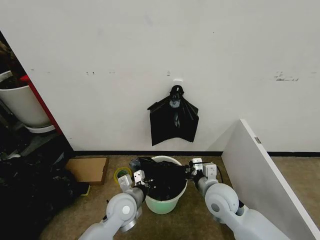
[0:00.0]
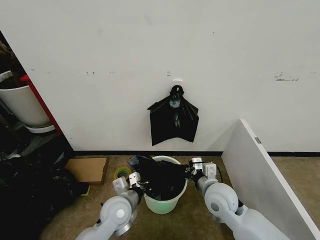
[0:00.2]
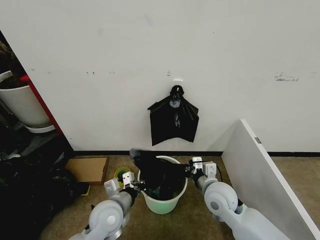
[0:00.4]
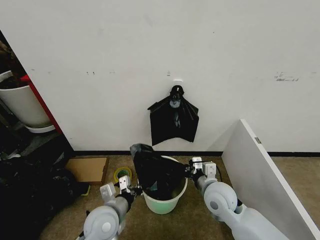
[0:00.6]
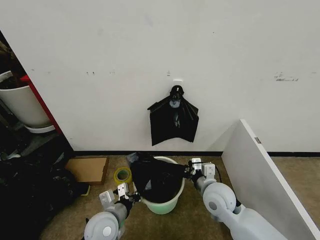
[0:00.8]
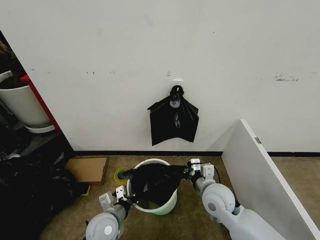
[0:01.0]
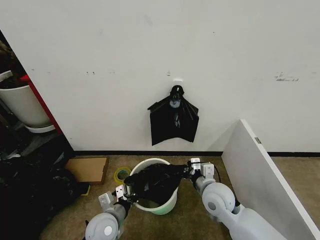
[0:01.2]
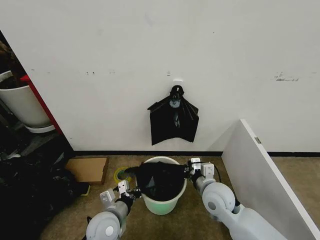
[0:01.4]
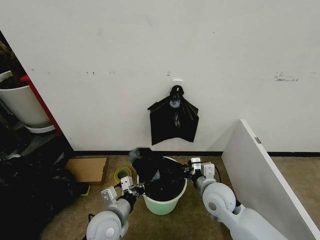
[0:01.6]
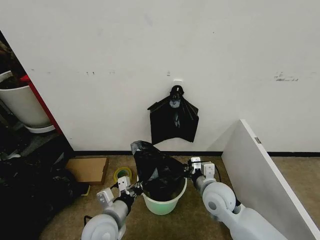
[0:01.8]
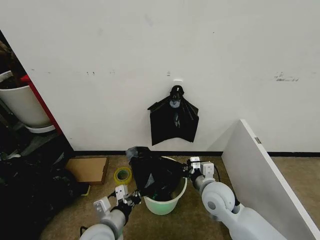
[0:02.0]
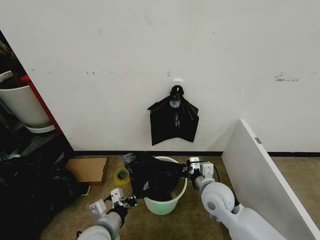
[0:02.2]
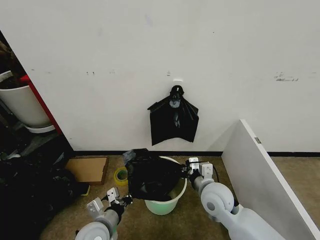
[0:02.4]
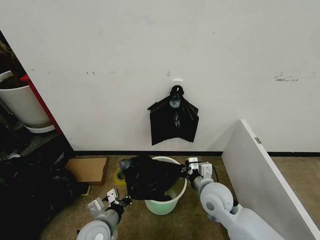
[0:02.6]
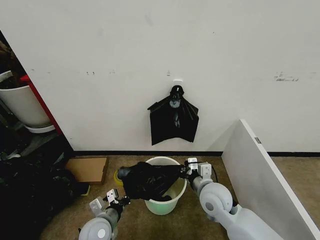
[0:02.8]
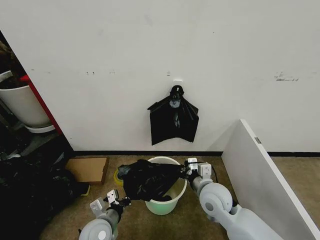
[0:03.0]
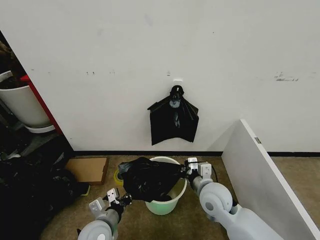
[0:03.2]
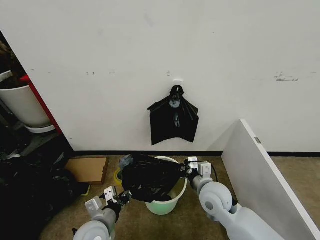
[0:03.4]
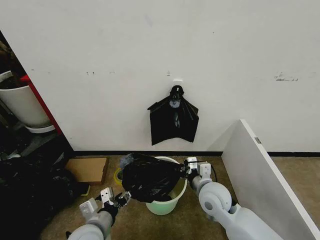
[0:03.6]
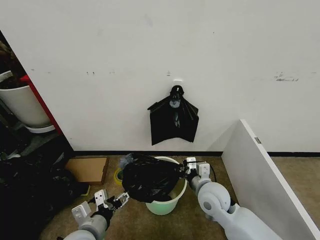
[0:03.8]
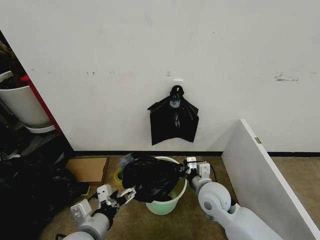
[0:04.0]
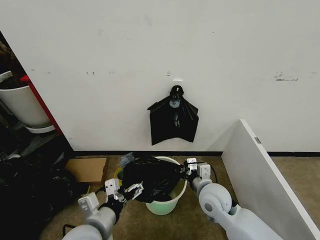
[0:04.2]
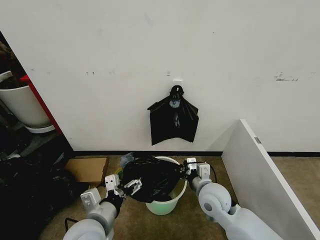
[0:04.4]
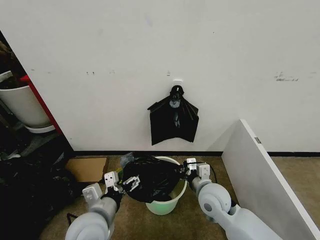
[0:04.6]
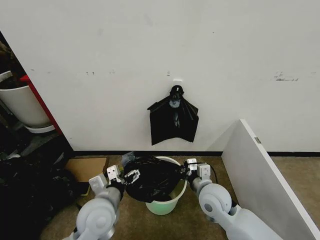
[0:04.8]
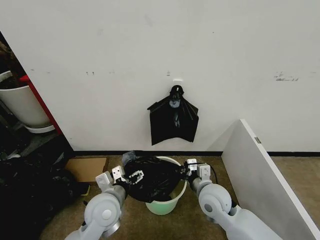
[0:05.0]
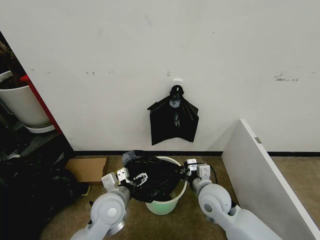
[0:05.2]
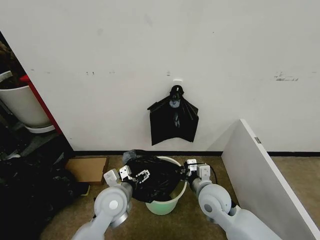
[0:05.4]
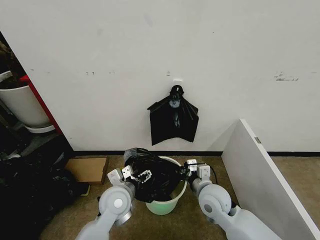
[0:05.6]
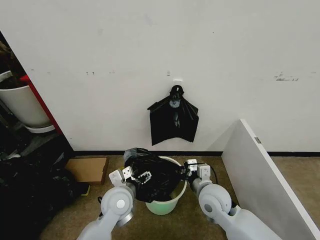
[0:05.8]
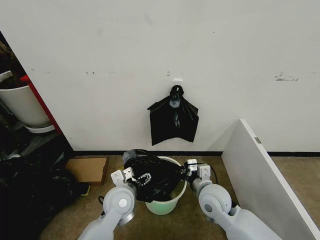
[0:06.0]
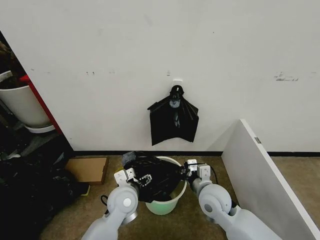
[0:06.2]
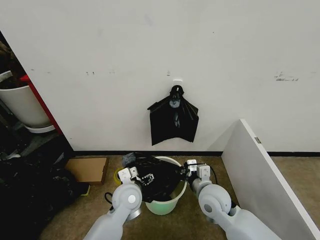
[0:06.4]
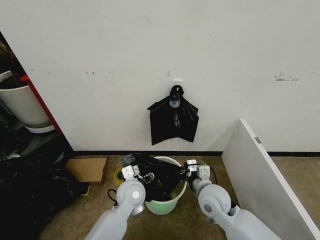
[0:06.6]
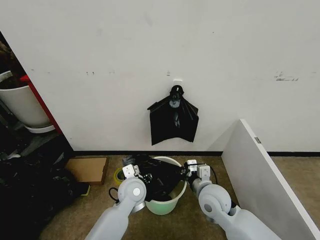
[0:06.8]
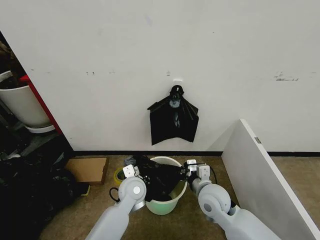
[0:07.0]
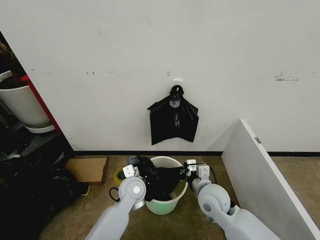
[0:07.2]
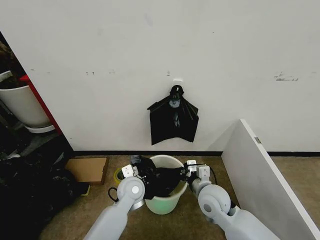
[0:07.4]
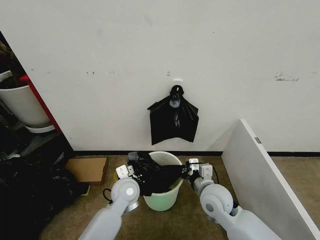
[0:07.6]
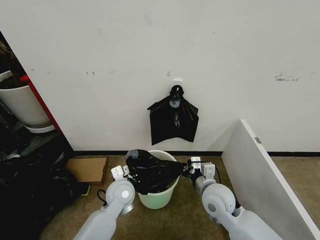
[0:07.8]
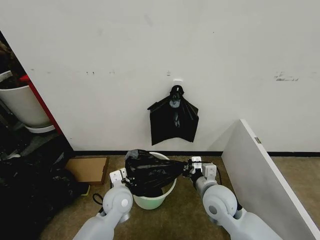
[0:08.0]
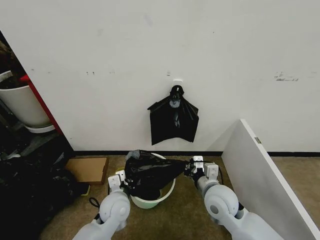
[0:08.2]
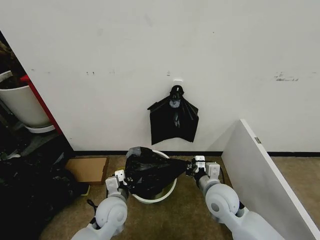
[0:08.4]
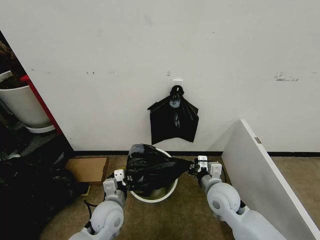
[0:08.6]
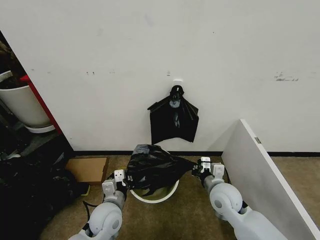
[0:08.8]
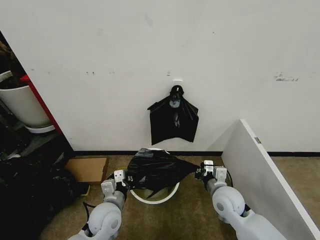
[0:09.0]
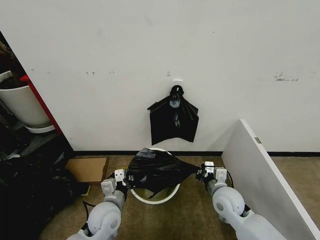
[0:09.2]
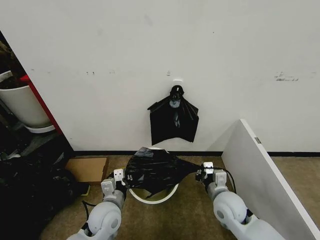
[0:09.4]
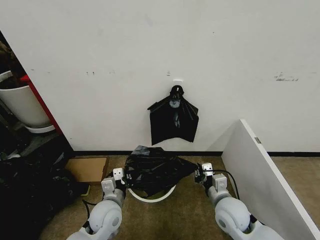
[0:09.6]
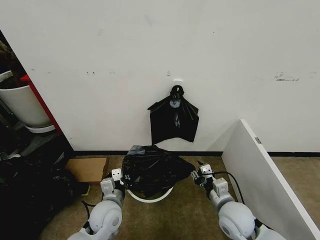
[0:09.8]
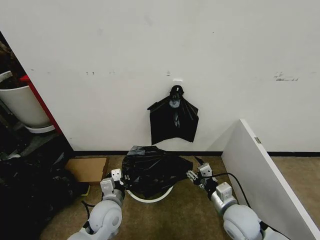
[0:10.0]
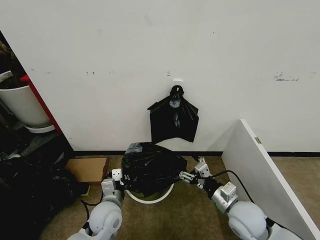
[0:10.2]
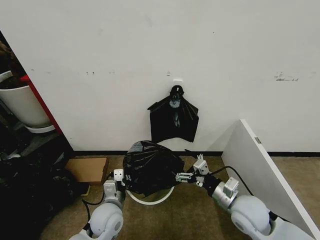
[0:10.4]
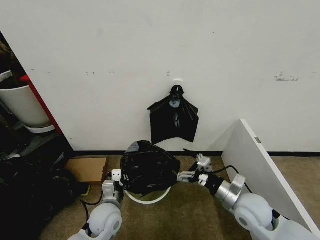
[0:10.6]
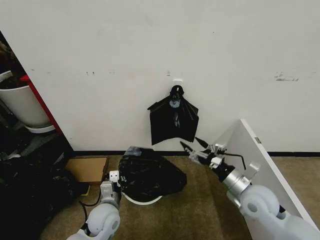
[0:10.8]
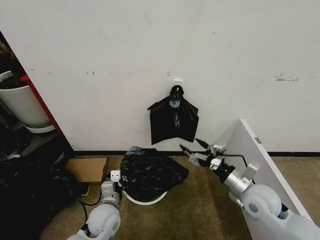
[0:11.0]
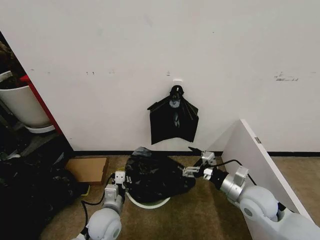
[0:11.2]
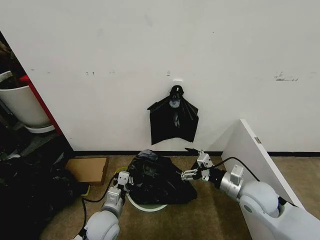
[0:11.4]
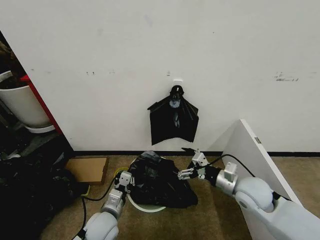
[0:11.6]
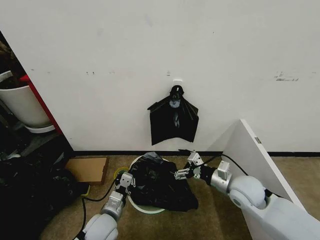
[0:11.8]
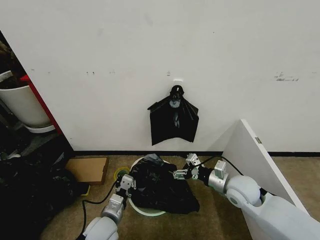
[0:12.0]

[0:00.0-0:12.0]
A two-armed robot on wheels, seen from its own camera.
Task of the whole recording: Place the garbage bag over the trash bin.
0:00.0 to 0:01.6: The left gripper is displaced backward by roughly 5 cm.
0:01.6 to 0:03.0: The left gripper is displaced downward by approximately 5 cm.
0:03.0 to 0:04.4: The left gripper is displaced upward by roughly 15 cm, and opens its fingers.
0:04.4 to 0:06.0: The left gripper is displaced forward, downward and to the right by about 15 cm.
0:06.0 to 0:07.6: The left gripper closes up.
0:07.6 to 0:09.0: The right gripper moves to the right, about 5 cm, while the left gripper travels backward and to the left by approximately 10 cm.
0:09.0 to 0:10.4: The right gripper shifts by approximately 5 cm, and opens.
0:10.4 to 0:12.0: The right gripper shifts about 5 cm forward.

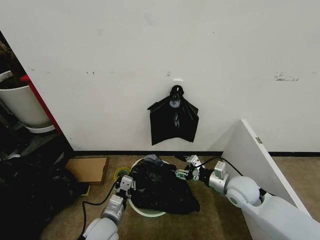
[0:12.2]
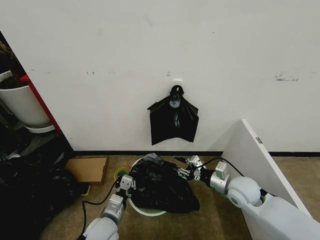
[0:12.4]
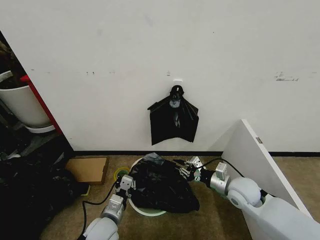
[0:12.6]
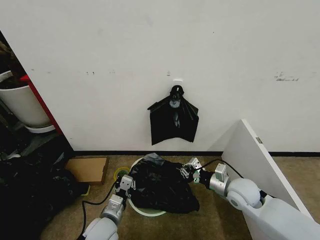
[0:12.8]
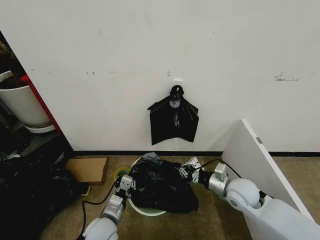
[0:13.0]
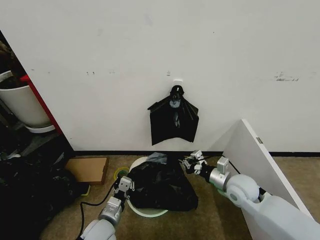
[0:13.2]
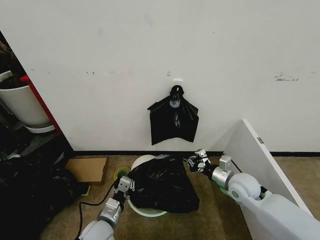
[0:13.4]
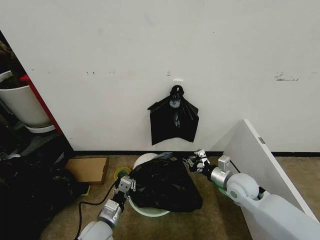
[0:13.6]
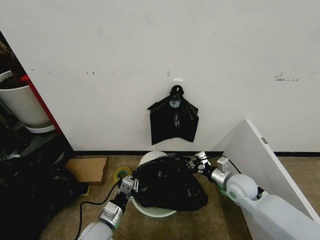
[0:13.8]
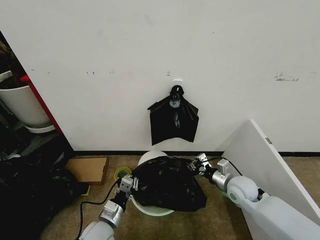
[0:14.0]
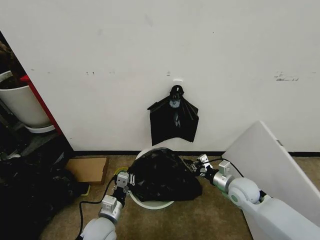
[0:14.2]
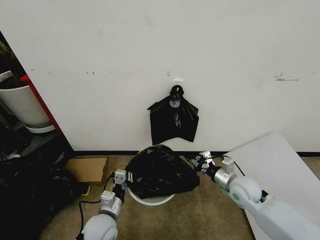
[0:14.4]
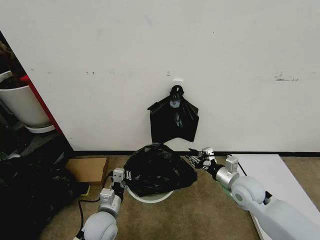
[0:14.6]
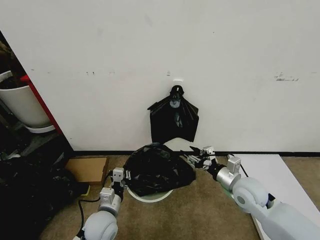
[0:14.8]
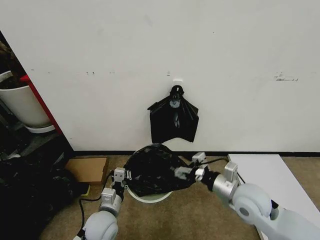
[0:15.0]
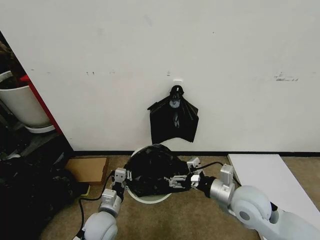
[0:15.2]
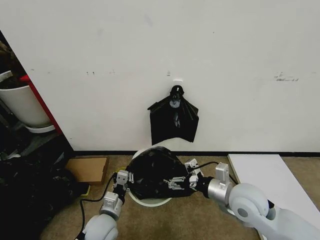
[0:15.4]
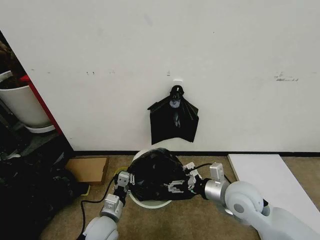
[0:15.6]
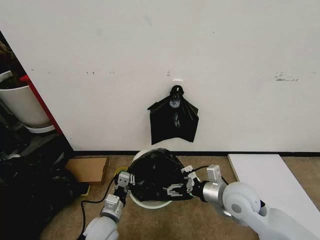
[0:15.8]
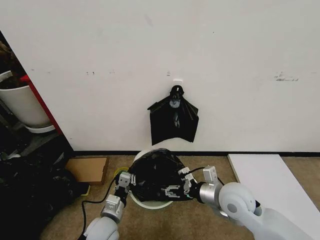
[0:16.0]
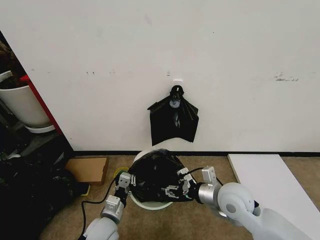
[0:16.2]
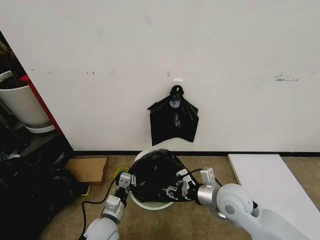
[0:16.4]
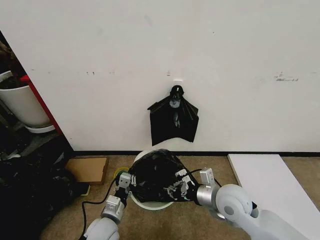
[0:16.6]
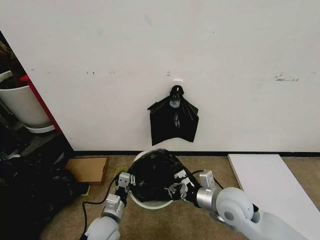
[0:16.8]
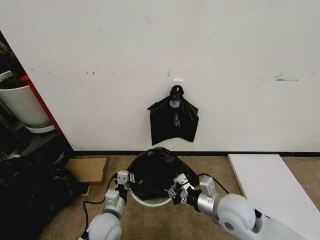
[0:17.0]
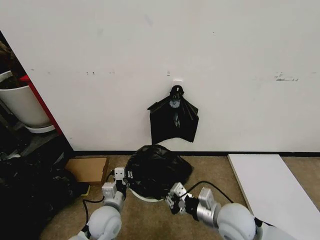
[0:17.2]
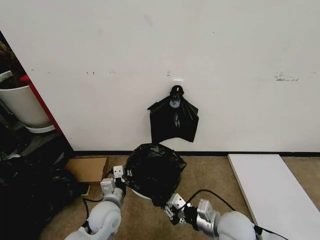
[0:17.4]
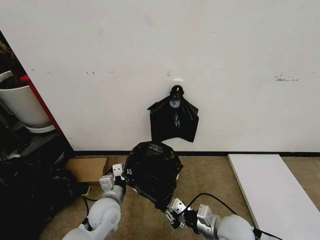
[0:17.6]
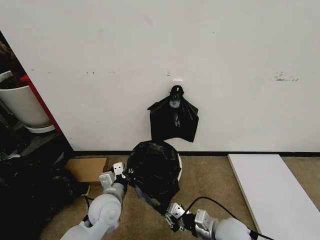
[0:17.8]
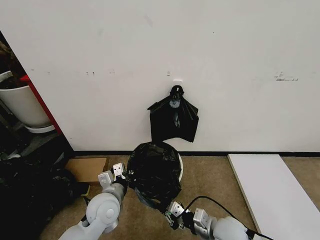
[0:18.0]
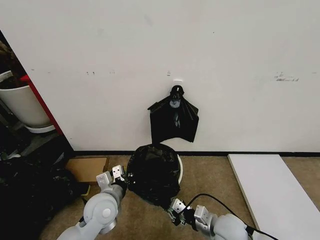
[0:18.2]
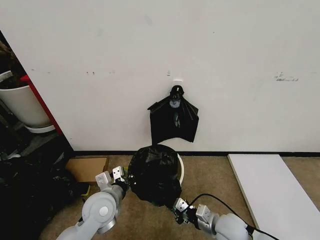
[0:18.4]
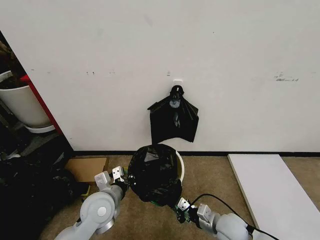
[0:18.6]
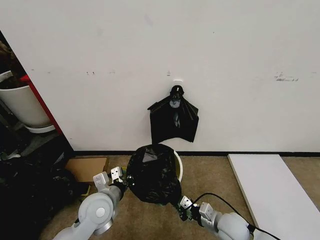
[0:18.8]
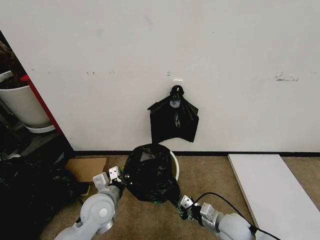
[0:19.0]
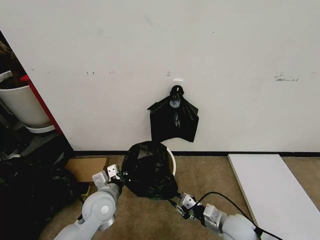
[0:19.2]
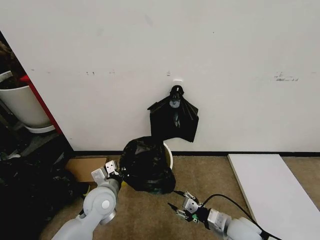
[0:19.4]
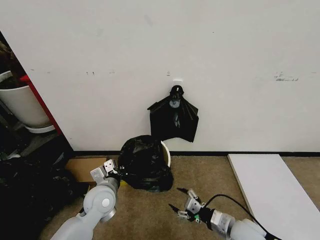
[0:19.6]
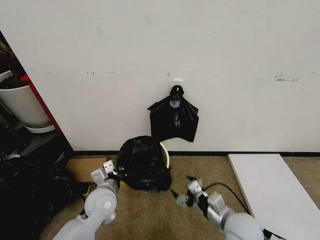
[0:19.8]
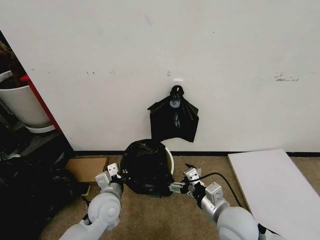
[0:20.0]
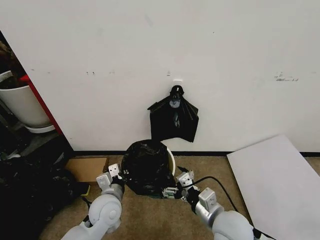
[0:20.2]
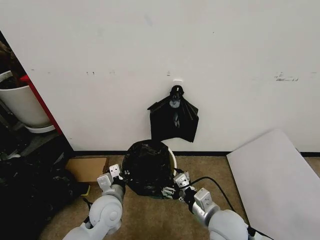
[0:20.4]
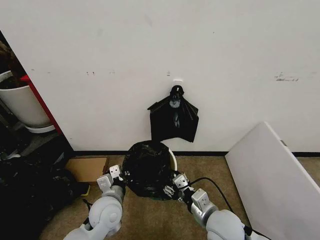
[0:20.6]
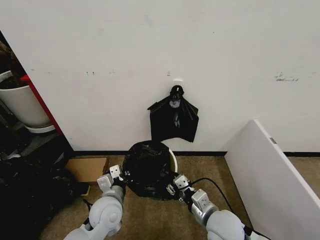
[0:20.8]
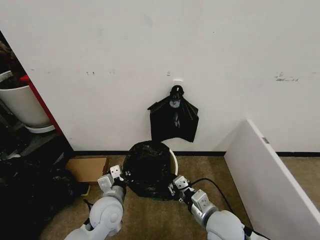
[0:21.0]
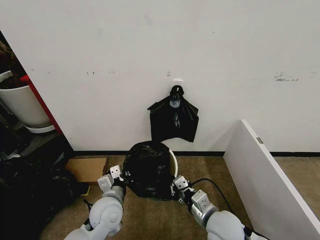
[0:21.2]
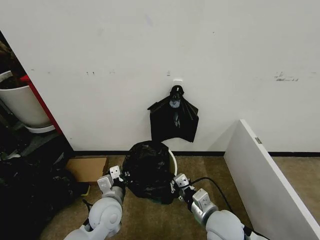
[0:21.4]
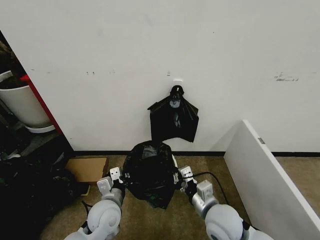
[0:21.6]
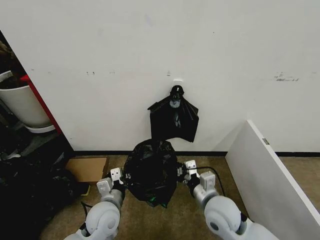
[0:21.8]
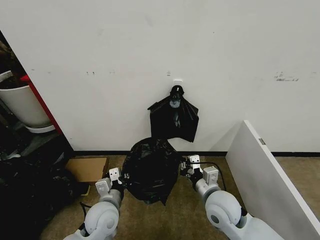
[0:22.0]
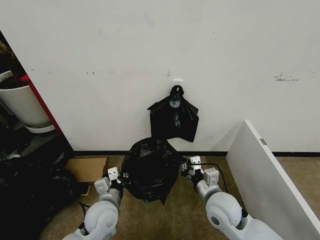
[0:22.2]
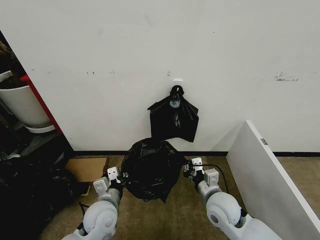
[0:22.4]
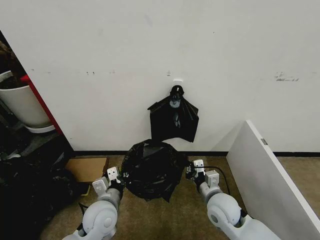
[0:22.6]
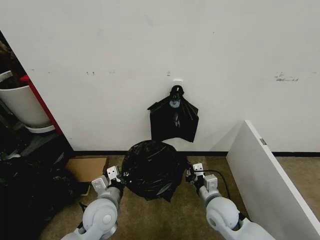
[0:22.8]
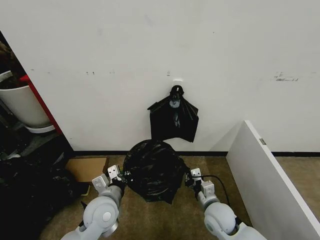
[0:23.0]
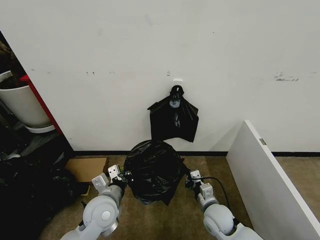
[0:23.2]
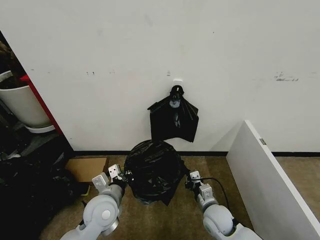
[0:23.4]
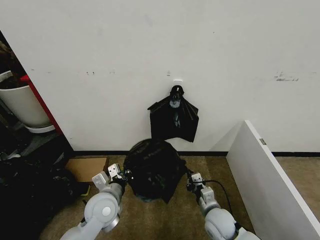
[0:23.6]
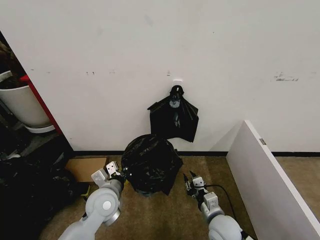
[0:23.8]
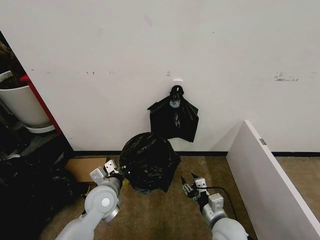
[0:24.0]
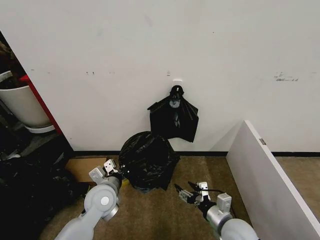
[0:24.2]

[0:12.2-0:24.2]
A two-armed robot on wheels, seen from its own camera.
Task of the whole recording: Place the garbage bag over the trash bin.
0:12.2 to 0:13.8: The right gripper closes.
0:13.8 to 0:15.2: The right gripper travels upward and backward by about 10 cm, and opens.
0:15.2 to 0:16.6: The right gripper closes its fingers.
0:16.6 to 0:18.2: The left gripper heads upward, covering some 10 cm. Meanwhile the right gripper moves downward and backward, about 10 cm.
0:18.2 to 0:19.8: The right gripper travels upward by about 5 cm, and opens its fingers.
0:19.8 to 0:21.2: The right gripper heads to the left, covering about 5 cm, and closes.
0:21.2 to 0:22.6: The right gripper heads forward, covering about 5 cm.
0:22.6 to 0:24.2: The right gripper travels backward by approximately 5 cm, reaches approximately 10 cm downward, then returns, and opens.
